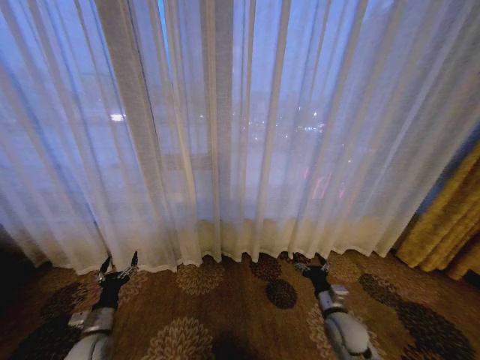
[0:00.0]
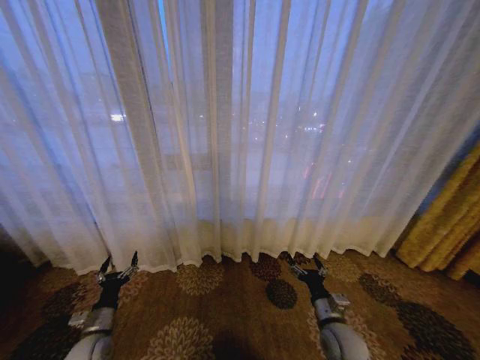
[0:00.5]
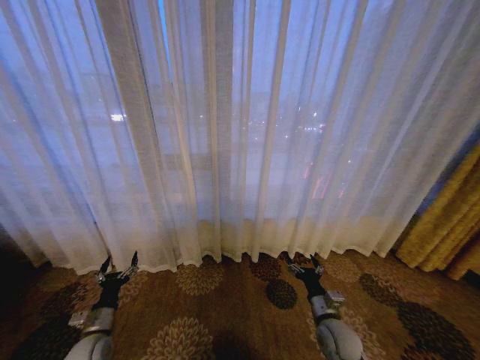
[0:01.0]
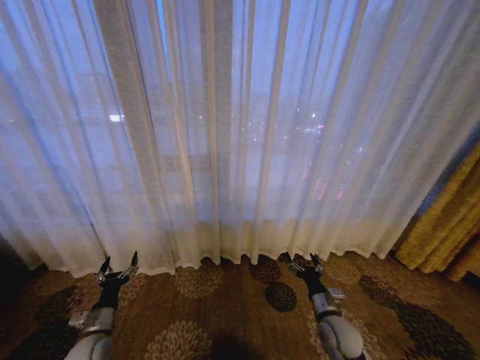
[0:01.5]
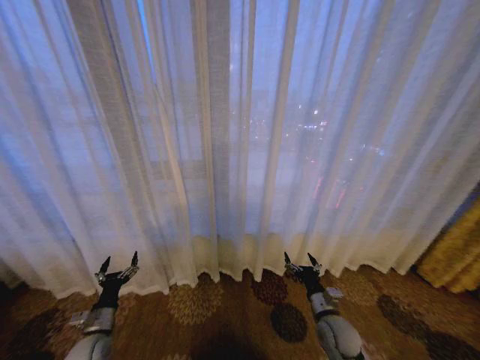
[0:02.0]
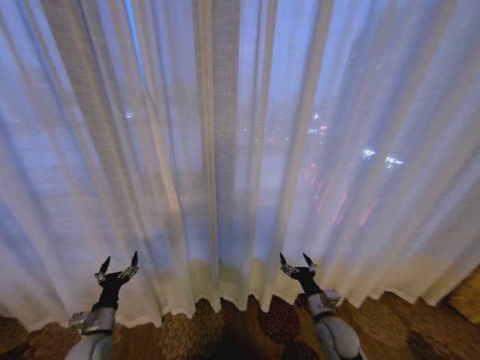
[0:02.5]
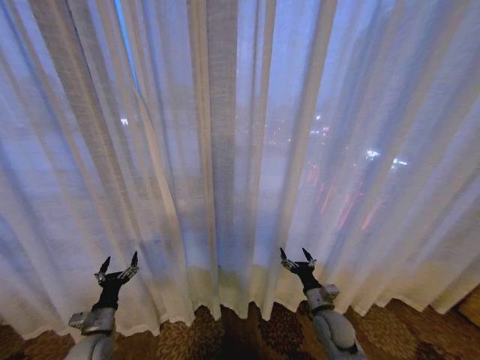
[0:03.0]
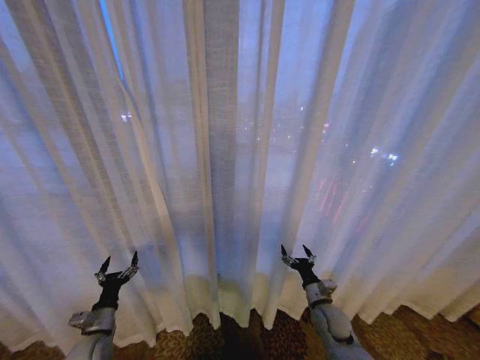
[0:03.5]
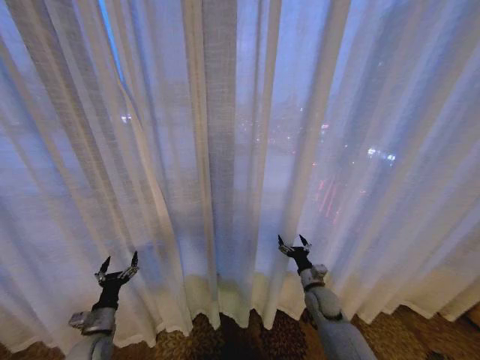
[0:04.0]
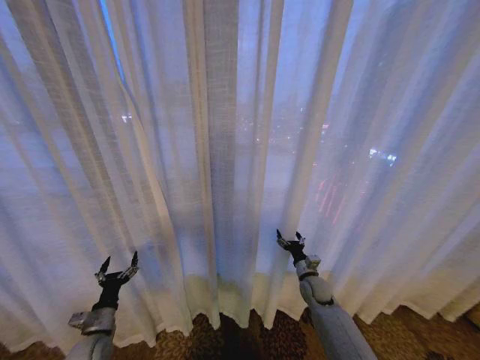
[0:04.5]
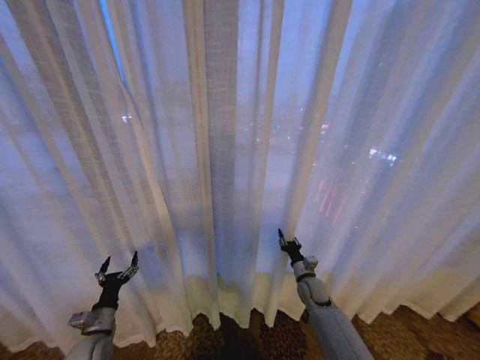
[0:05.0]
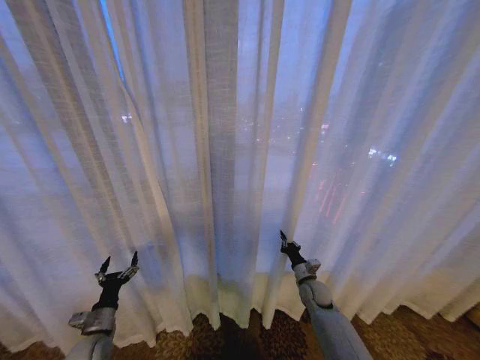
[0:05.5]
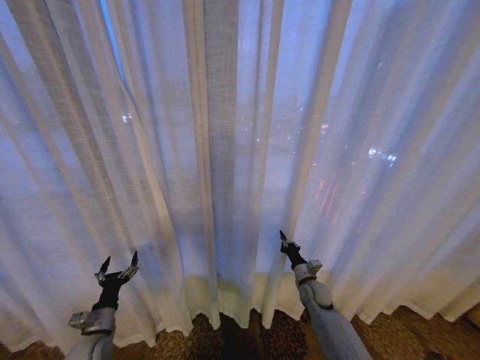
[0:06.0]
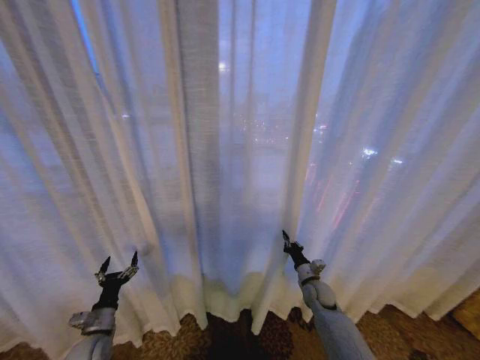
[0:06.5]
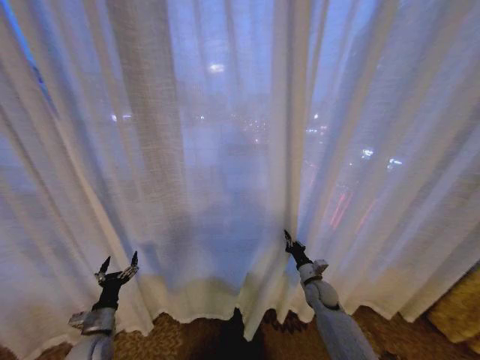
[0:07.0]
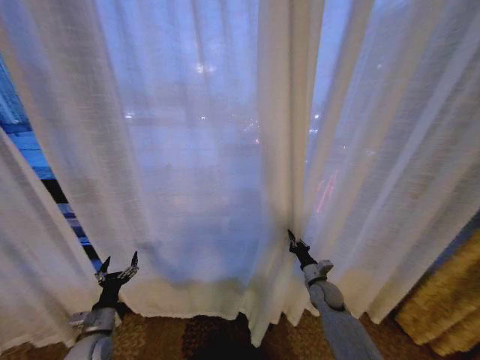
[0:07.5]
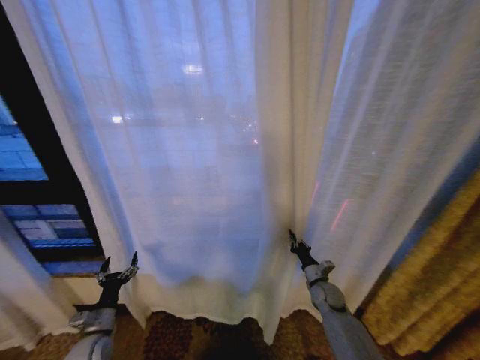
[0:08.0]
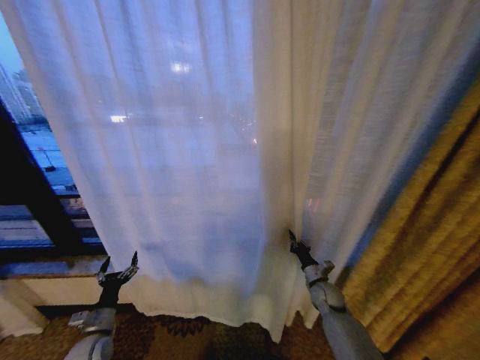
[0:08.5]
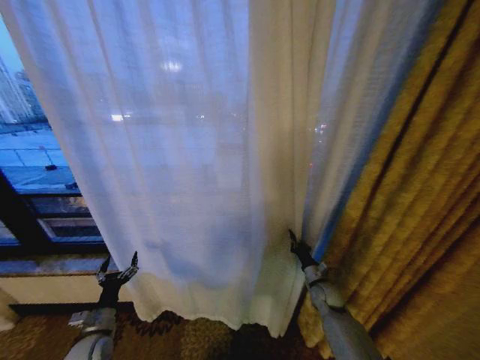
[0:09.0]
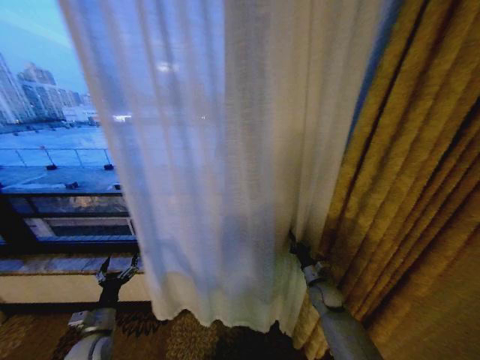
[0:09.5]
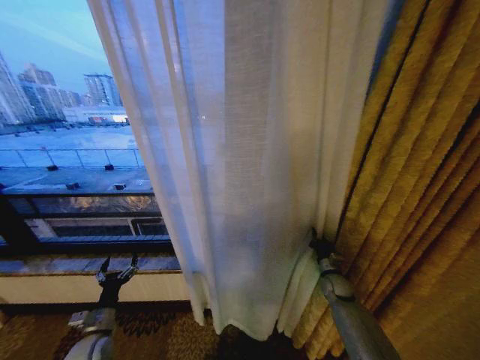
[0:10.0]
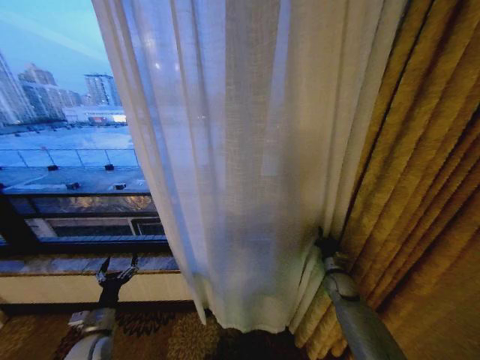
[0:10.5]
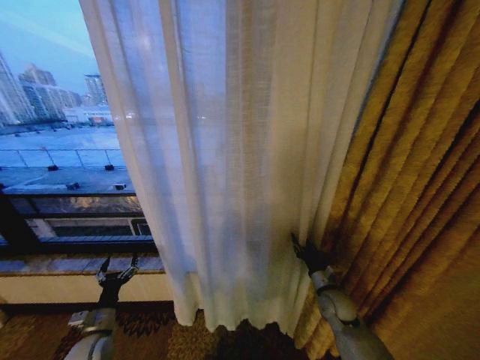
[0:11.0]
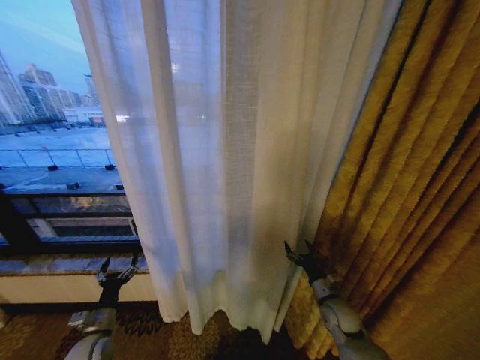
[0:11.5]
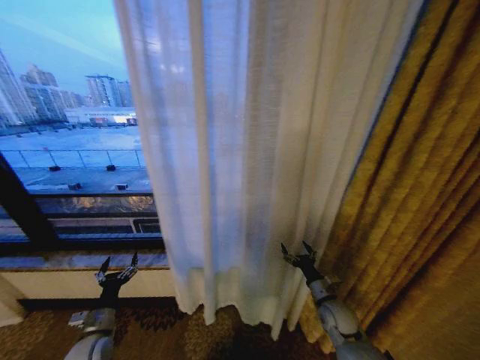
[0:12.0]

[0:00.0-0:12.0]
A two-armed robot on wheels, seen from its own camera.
Task of the whole recording: Open the curtains by pulling them apart, changing their state from closed to fully open.
0:02.0 to 0:04.0: The right gripper goes about 10 cm forward.
0:04.0 to 0:06.0: The right gripper closes up.
0:08.0 to 0:10.0: The right gripper moves roughly 5 cm.
0:10.0 to 0:12.0: The right gripper travels backward and to the left by roughly 10 cm, and opens its fingers.

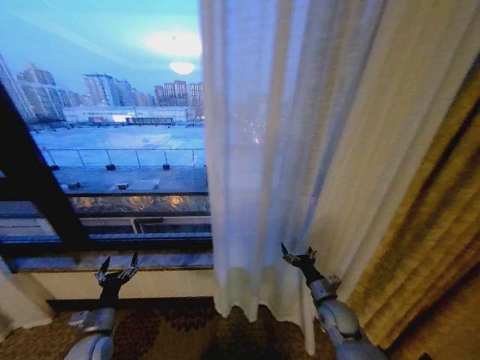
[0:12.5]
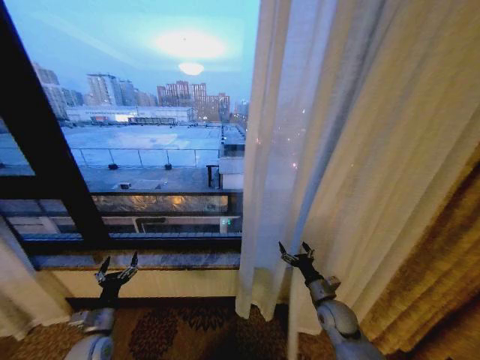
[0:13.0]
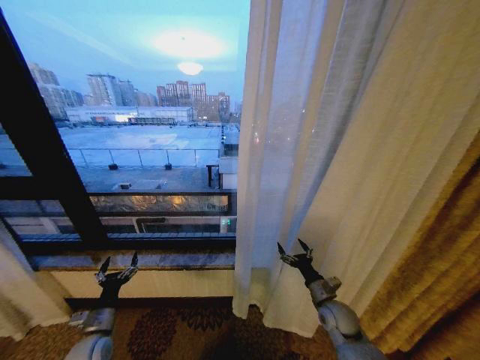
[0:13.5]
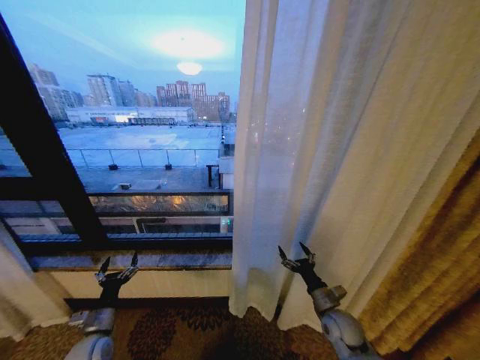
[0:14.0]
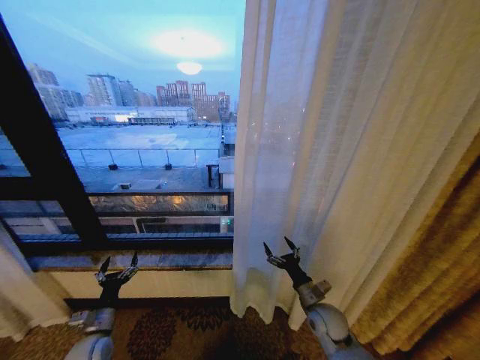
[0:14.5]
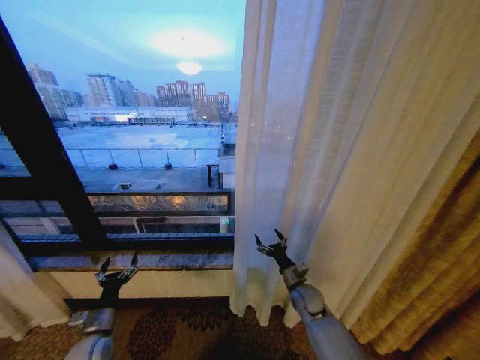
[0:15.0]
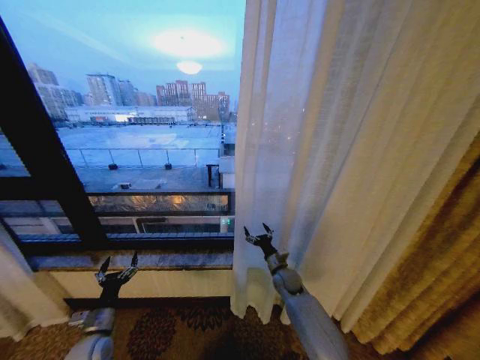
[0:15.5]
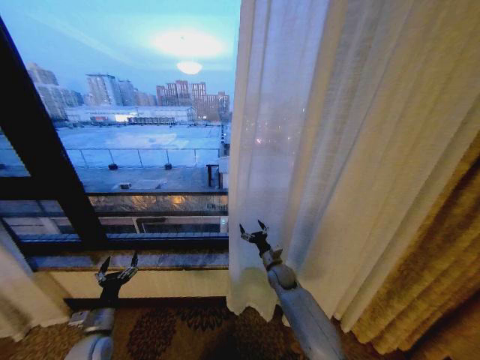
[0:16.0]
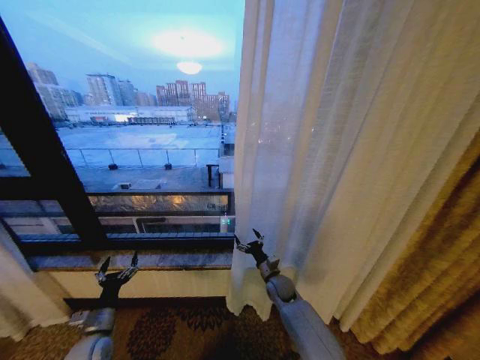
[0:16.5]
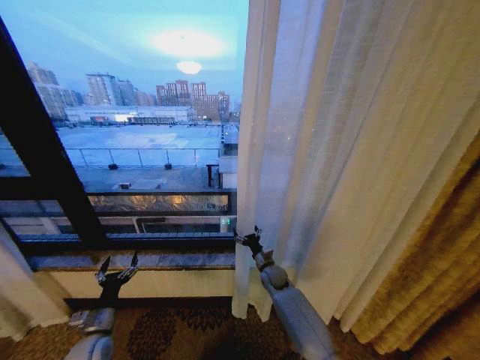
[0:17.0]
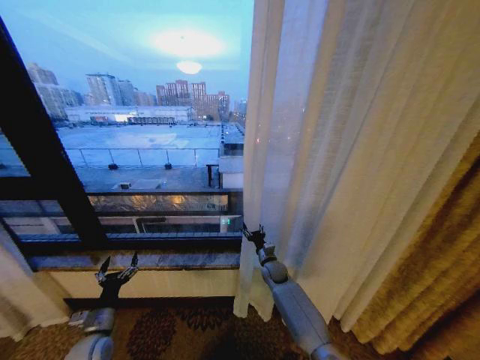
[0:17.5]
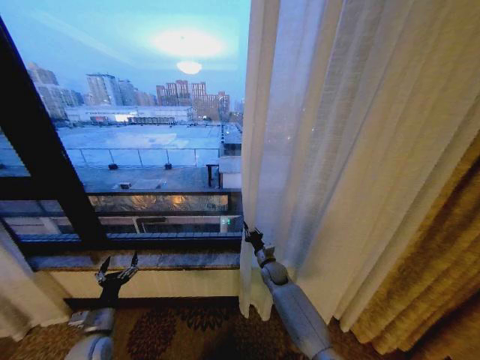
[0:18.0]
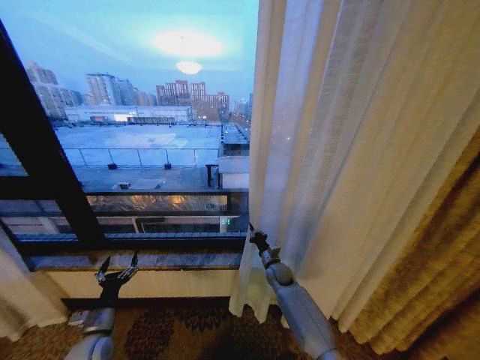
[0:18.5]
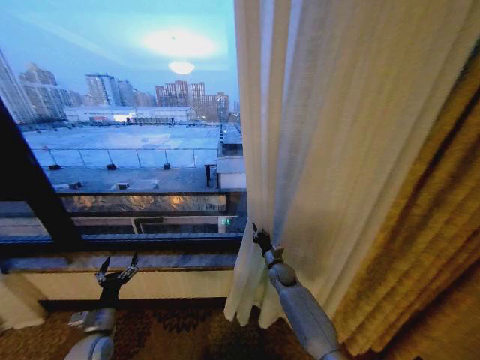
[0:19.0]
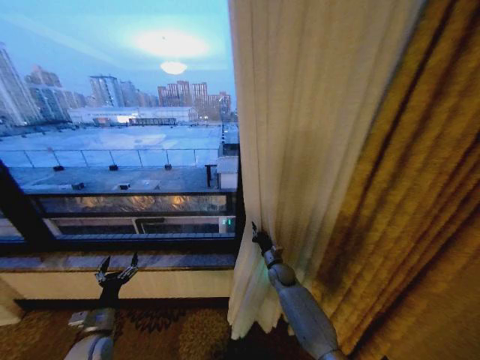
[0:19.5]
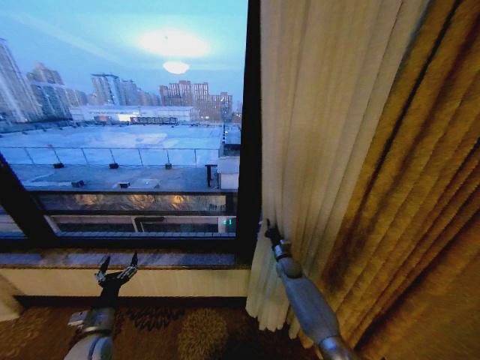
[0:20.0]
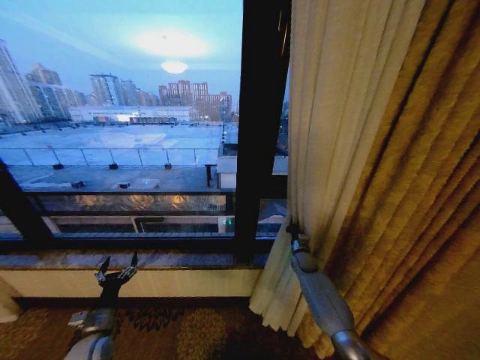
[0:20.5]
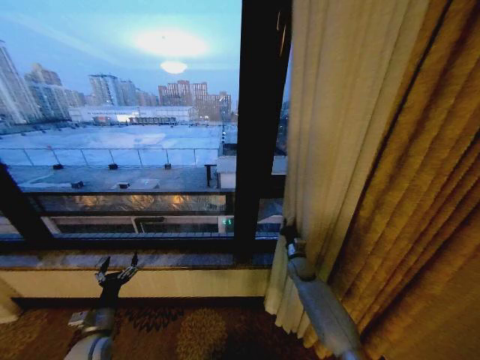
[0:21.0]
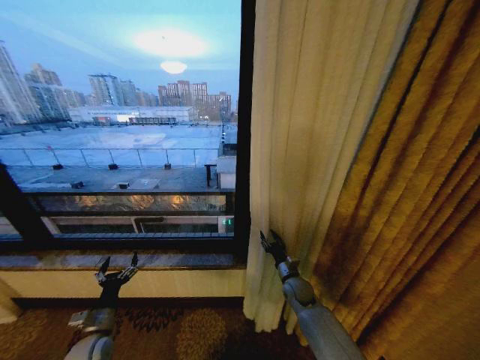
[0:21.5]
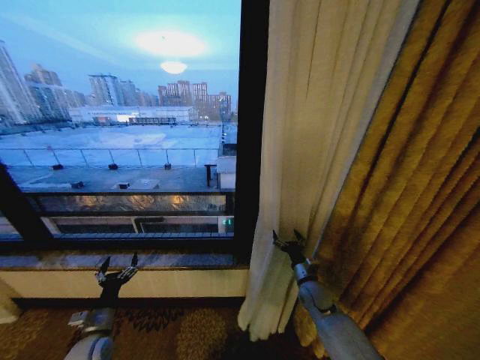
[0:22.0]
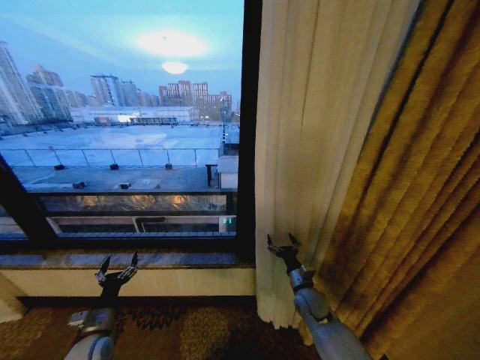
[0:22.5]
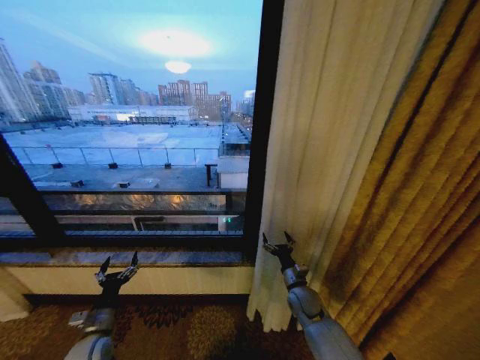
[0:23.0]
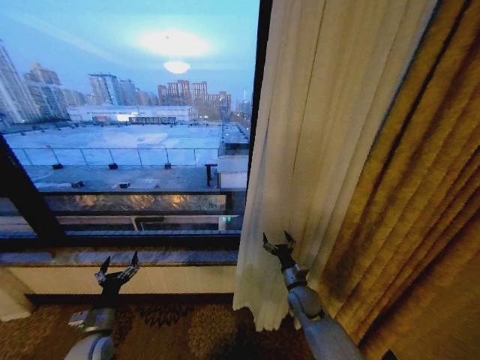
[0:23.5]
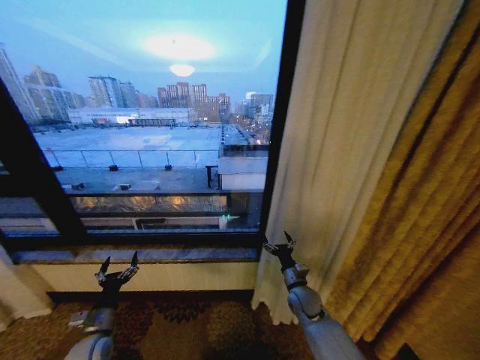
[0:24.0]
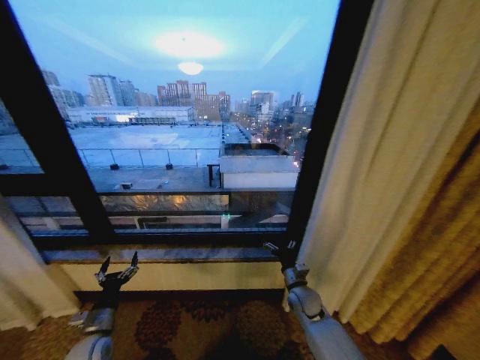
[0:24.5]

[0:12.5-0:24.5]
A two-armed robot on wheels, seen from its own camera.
Task of the whole recording: Open the curtains by pulling them apart, changing their state from closed to fully open.
0:14.5 to 0:16.5: The right gripper heads forward and to the left, covering approximately 15 cm.
0:16.5 to 0:18.5: The right gripper shifts about 5 cm forward, and closes.
0:18.5 to 0:20.5: The right gripper travels to the right by roughly 10 cm.
0:20.5 to 0:22.5: The right gripper travels backward by approximately 15 cm, and opens up.

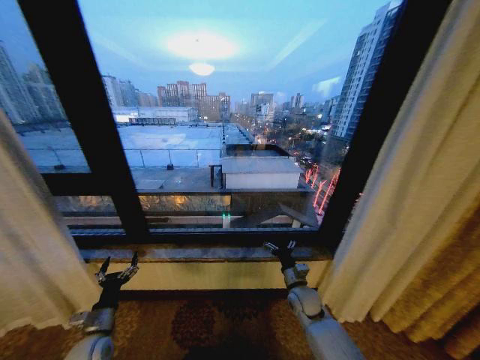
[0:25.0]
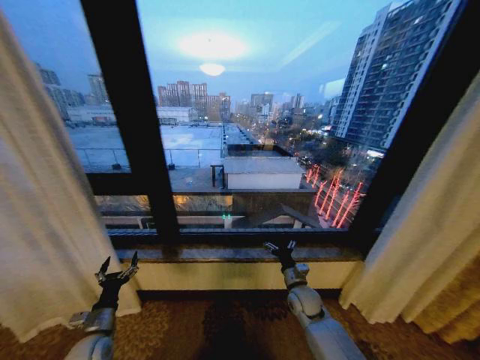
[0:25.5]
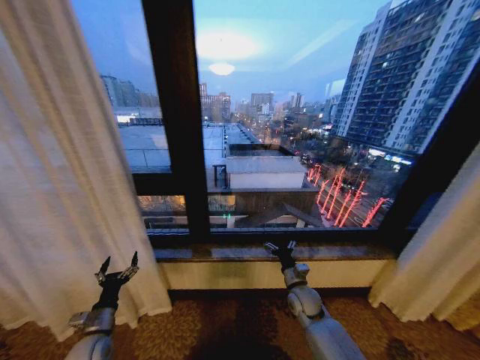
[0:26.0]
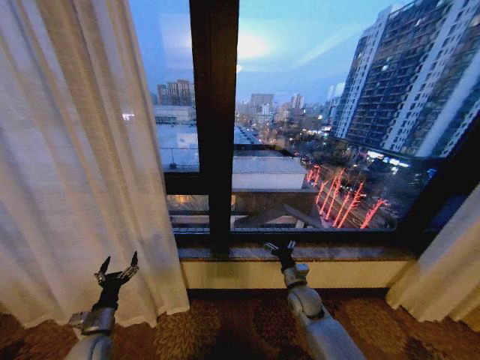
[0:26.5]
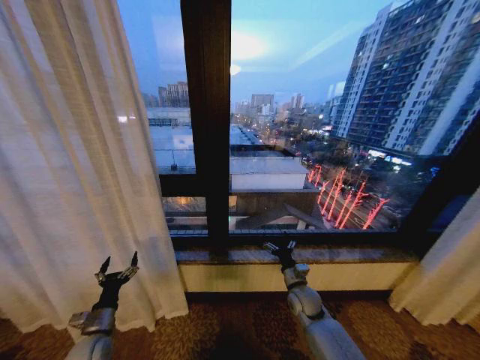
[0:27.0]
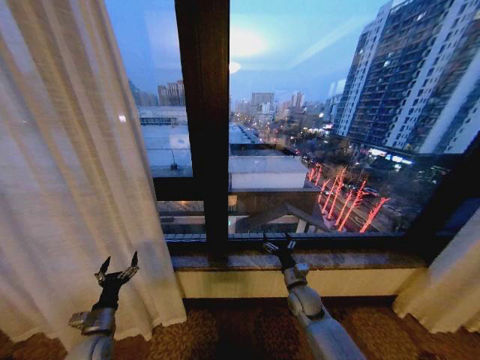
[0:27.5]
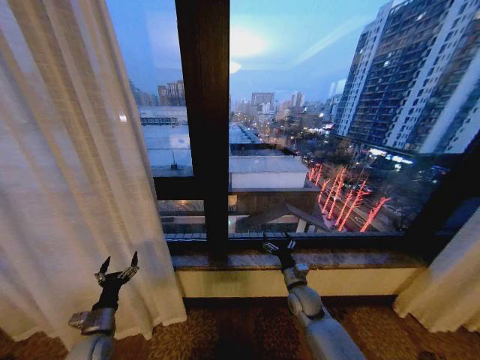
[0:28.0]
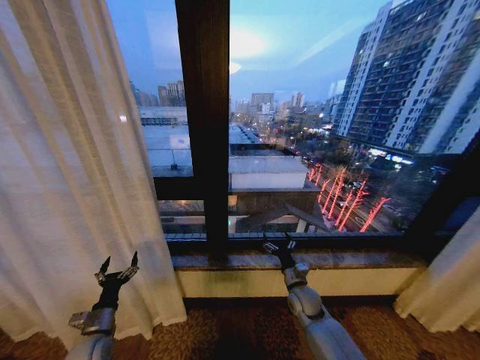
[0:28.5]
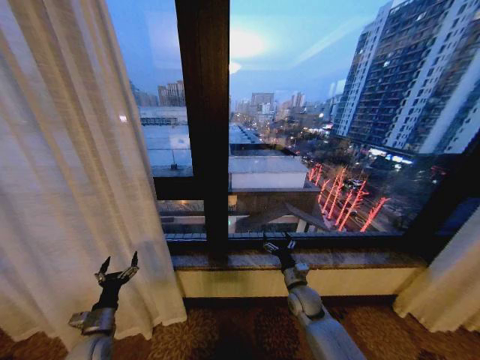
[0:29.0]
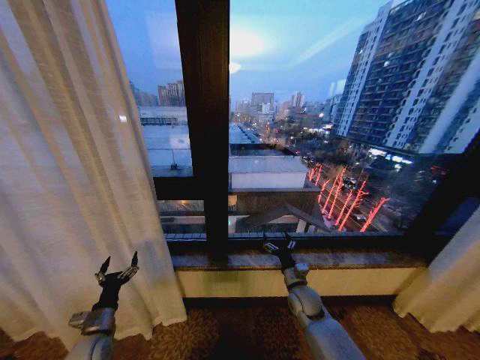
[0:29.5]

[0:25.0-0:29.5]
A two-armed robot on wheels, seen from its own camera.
Task of the whole recording: Open the curtains by pulling them apart, changing their state from closed to fully open.
0:27.0 to 0:29.5: Neither gripper changes place.
